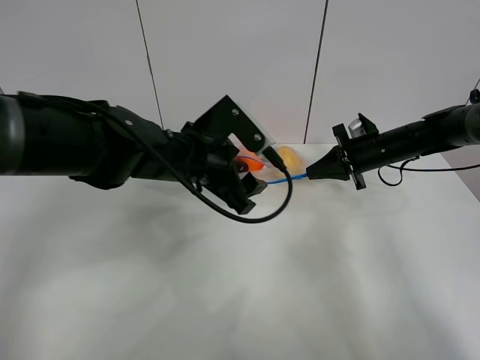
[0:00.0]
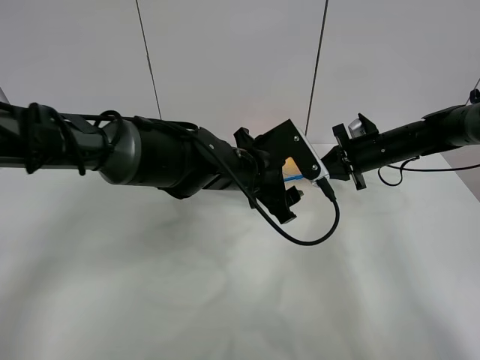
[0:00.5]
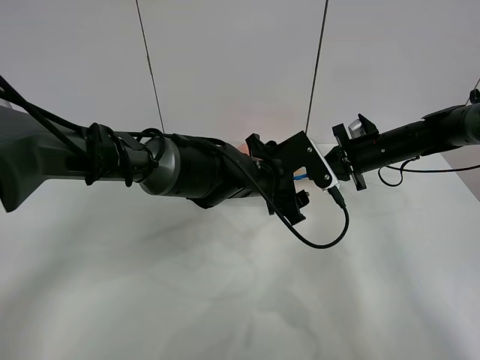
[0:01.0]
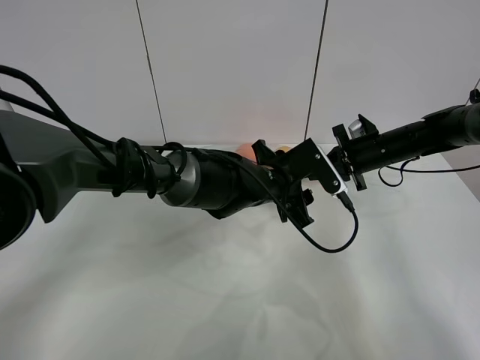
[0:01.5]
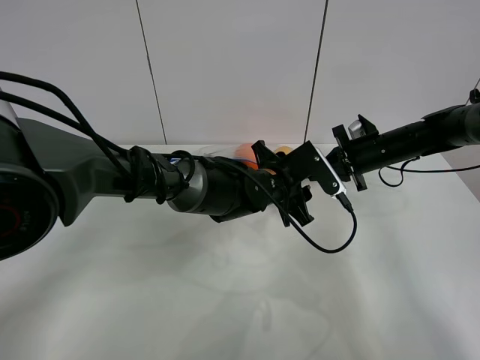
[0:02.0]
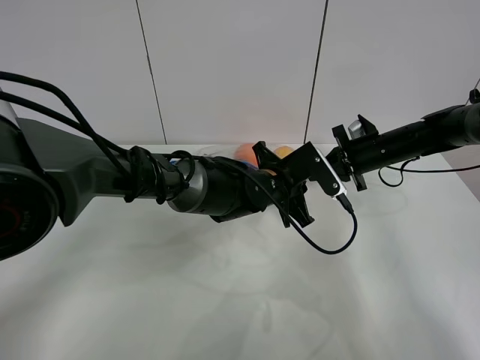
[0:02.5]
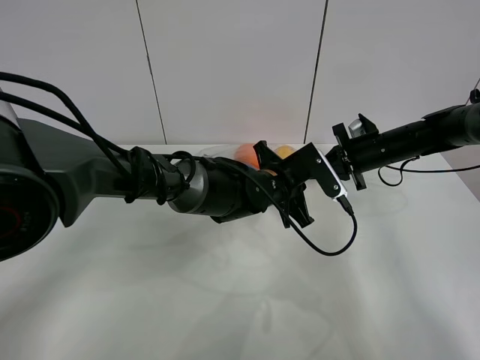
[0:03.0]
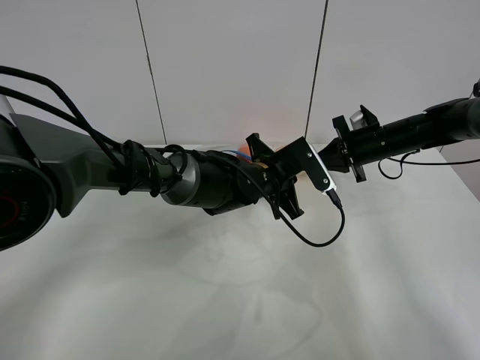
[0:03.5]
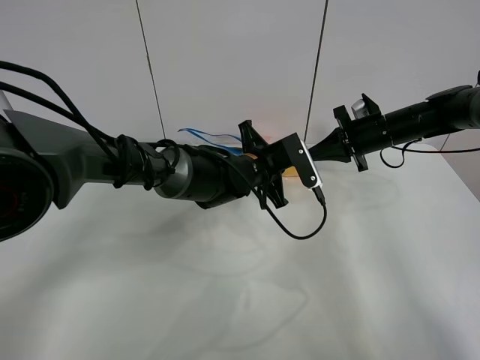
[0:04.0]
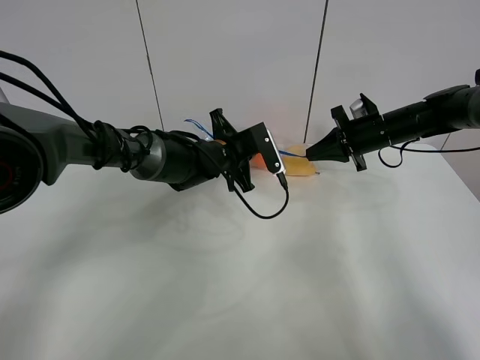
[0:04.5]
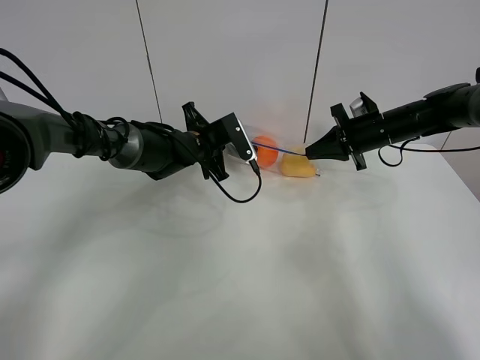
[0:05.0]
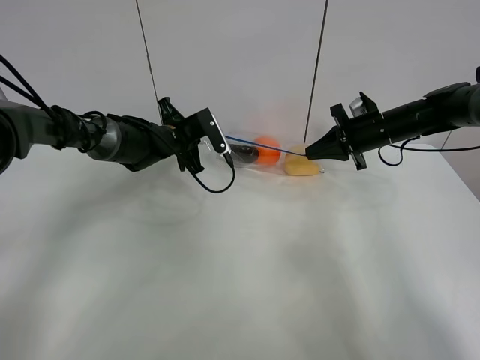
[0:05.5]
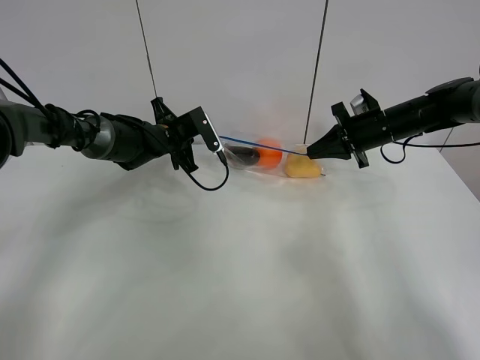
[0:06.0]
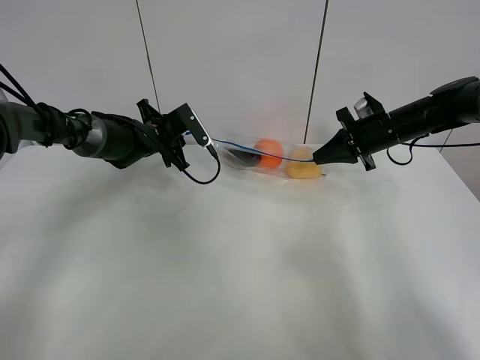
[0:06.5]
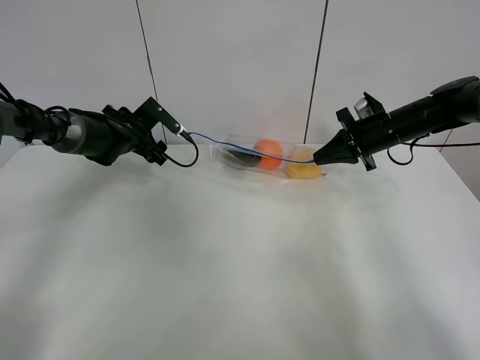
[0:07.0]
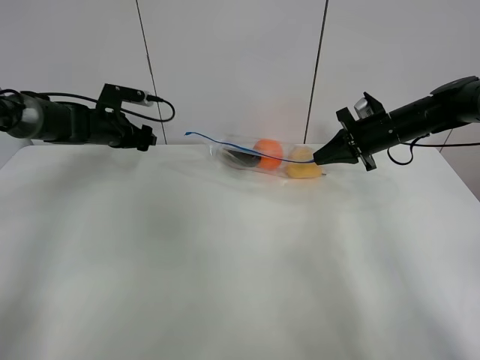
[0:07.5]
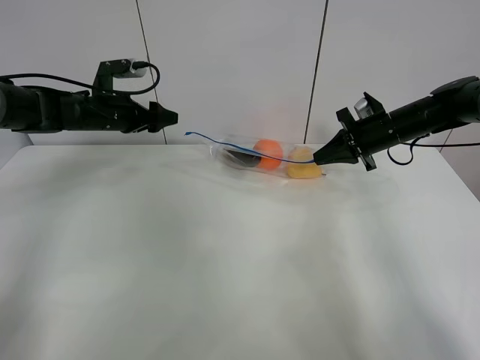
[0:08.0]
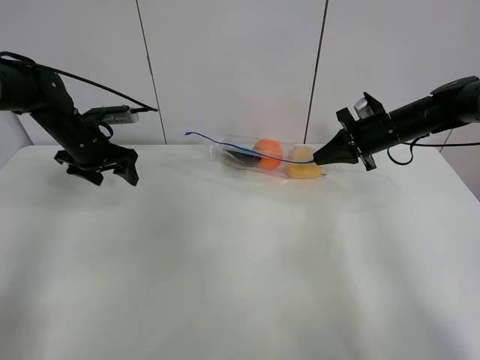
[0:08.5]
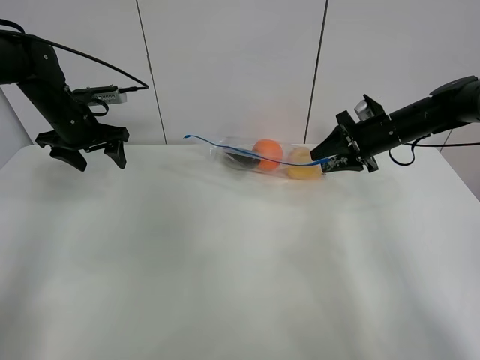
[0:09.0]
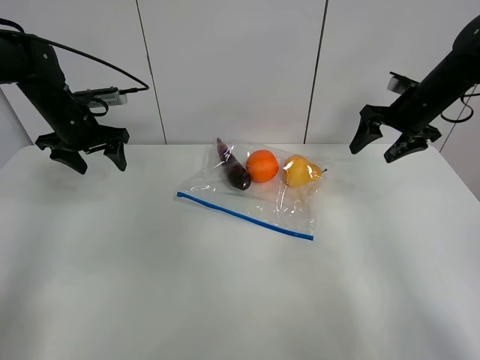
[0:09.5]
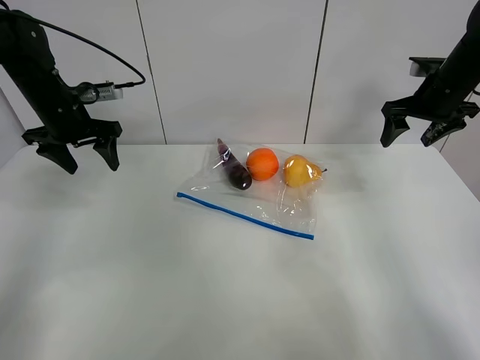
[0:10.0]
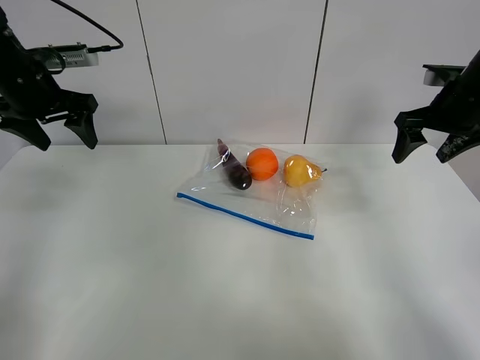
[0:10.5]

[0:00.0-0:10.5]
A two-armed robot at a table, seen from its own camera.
Step, 0:00.0 to 0:06.5: Pull the fruit bag with left gripper.
0:00.0 to 0:02.0: The left gripper heads to the right and downward, covering about 15 cm.
0:02.0 to 0:04.0: The left gripper ends up roughly 5 cm from where it was, and closes up.
0:04.0 to 0:06.5: The left gripper is displaced to the left and forward by about 20 cm, and opens.
0:06.5 to 0:08.5: The left gripper goes about 10 cm to the left and upward, and opens its fingers.
0:08.5 to 0:10.5: The left gripper is displaced upward and backward by some 15 cm, while the right gripper moves upward, backward and to the right, approximately 15 cm, and opens up.

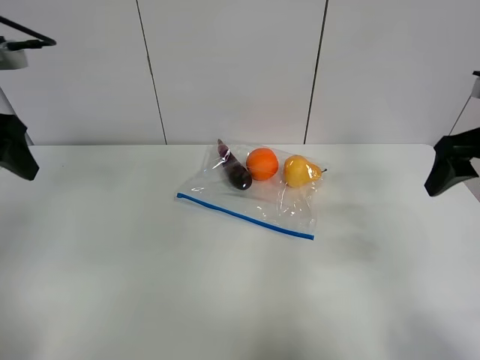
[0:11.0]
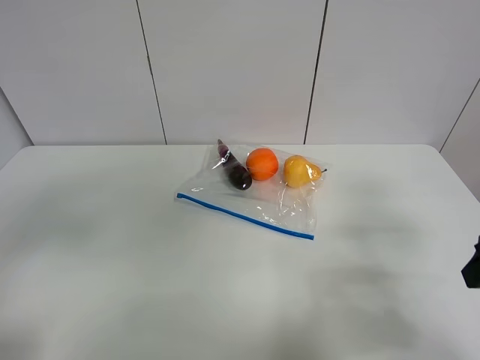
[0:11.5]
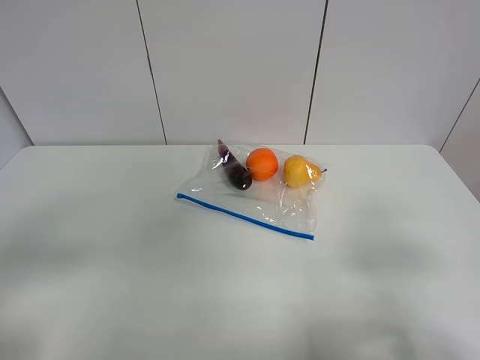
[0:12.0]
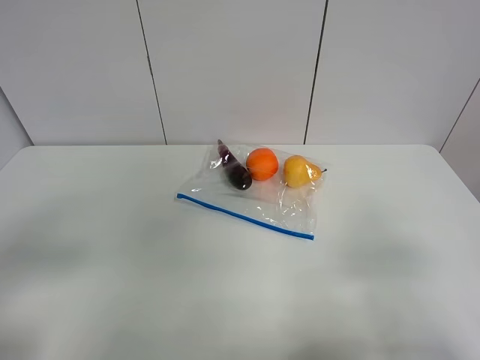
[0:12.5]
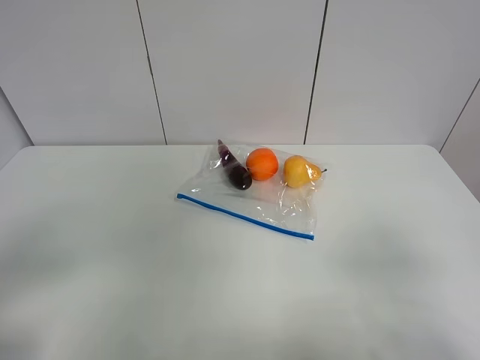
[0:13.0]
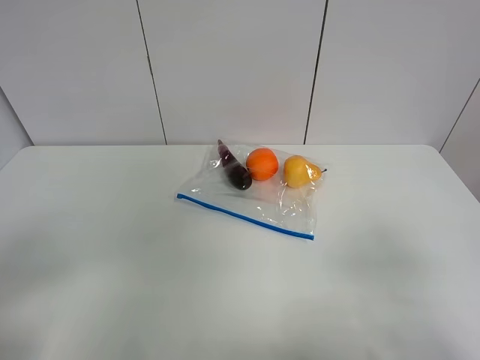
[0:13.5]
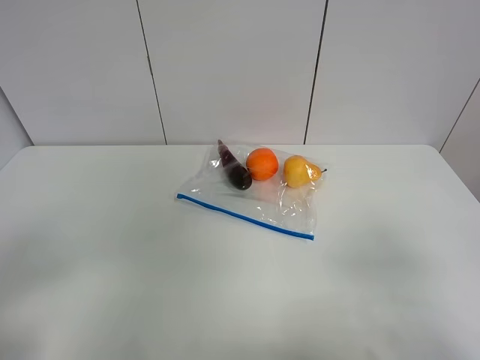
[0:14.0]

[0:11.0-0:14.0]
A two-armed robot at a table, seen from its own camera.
0:11.0 to 0:12.5: The two grippers go about 20 cm backward.
